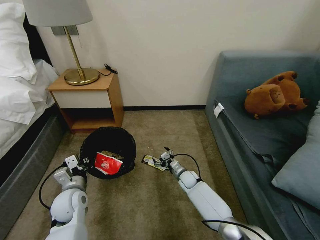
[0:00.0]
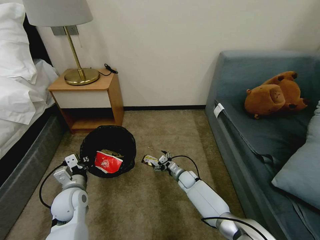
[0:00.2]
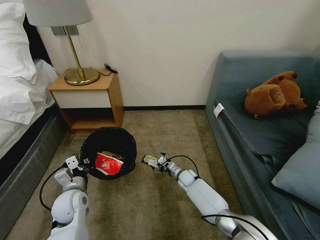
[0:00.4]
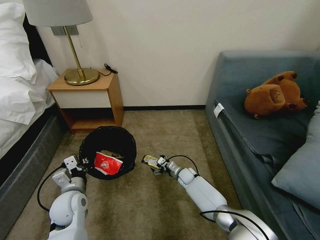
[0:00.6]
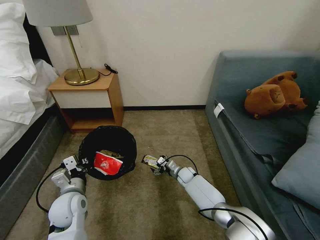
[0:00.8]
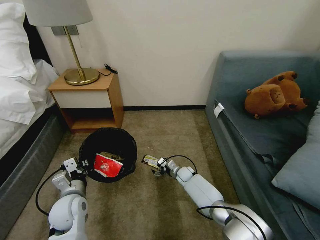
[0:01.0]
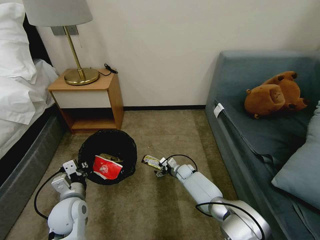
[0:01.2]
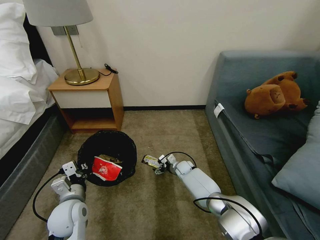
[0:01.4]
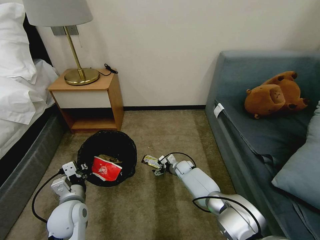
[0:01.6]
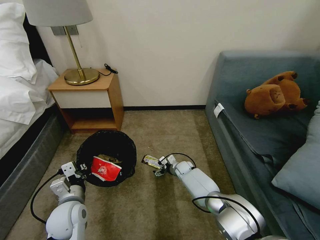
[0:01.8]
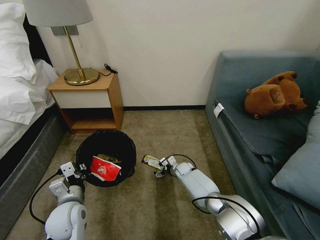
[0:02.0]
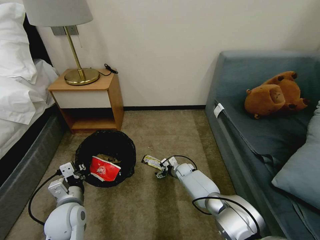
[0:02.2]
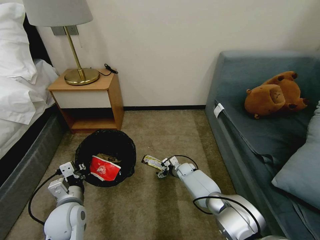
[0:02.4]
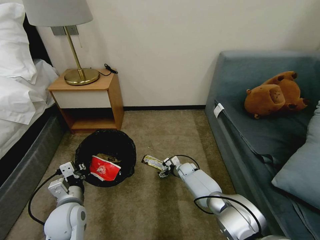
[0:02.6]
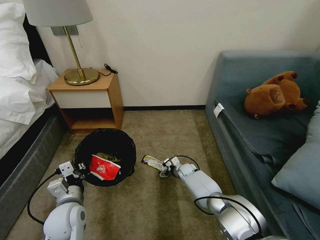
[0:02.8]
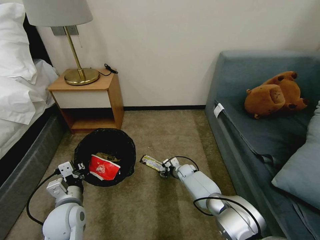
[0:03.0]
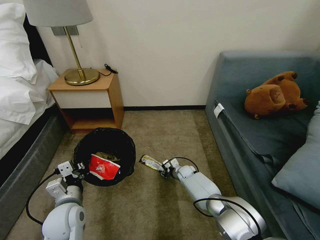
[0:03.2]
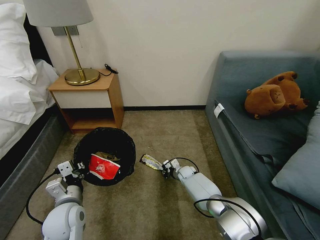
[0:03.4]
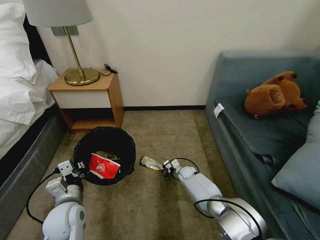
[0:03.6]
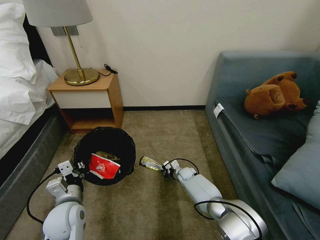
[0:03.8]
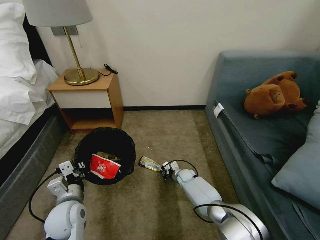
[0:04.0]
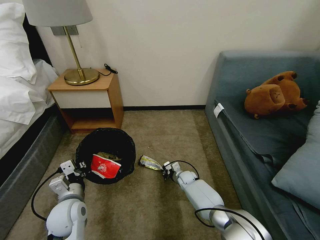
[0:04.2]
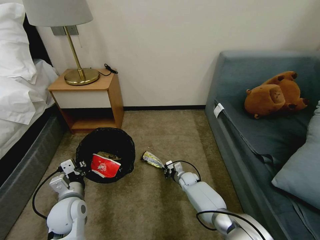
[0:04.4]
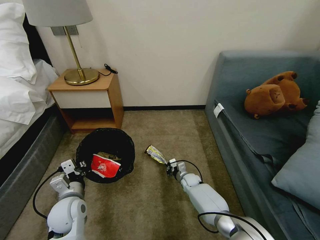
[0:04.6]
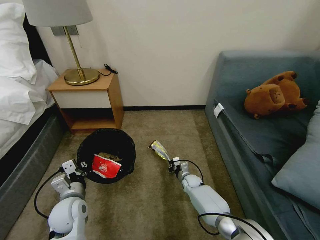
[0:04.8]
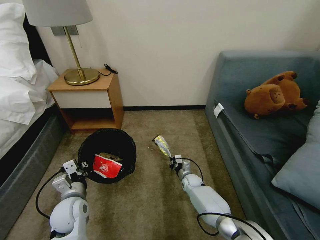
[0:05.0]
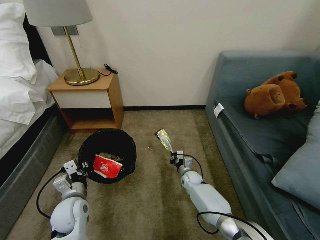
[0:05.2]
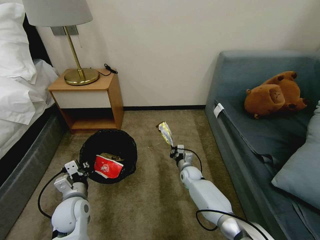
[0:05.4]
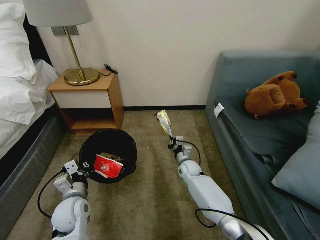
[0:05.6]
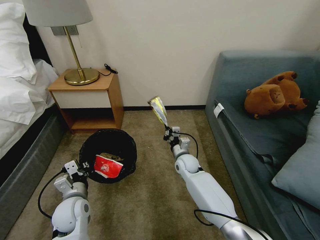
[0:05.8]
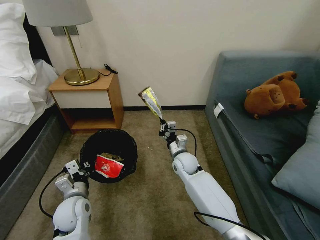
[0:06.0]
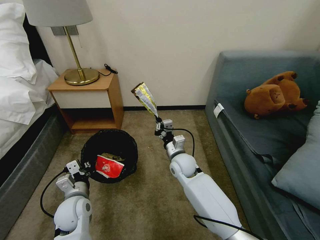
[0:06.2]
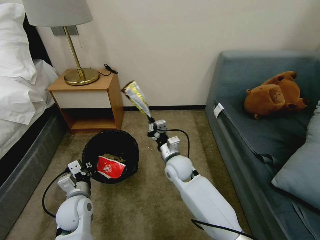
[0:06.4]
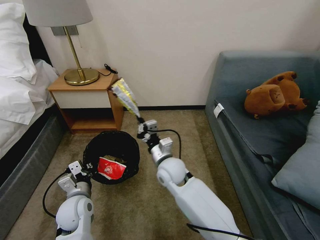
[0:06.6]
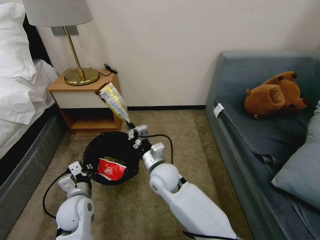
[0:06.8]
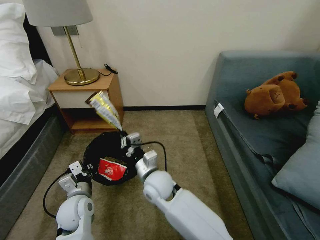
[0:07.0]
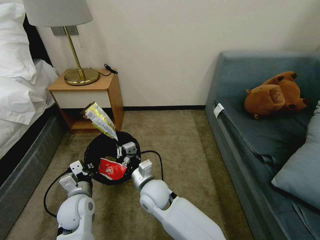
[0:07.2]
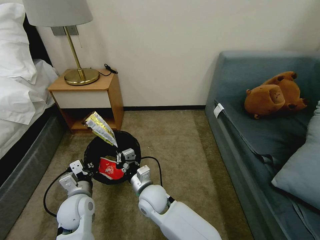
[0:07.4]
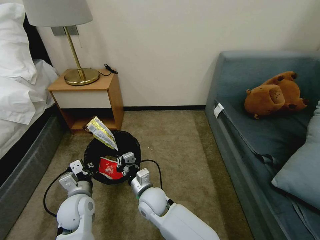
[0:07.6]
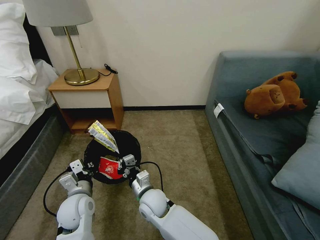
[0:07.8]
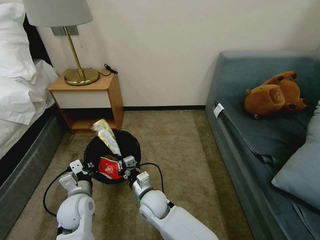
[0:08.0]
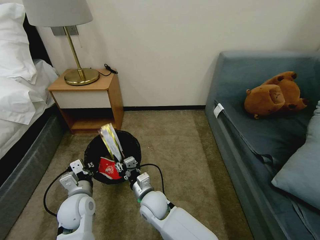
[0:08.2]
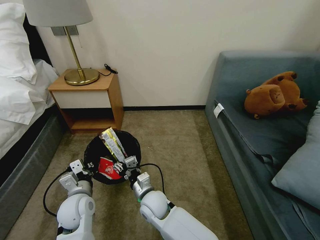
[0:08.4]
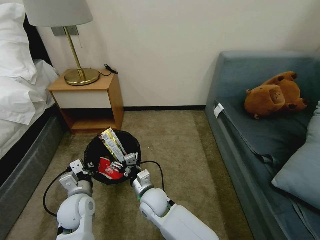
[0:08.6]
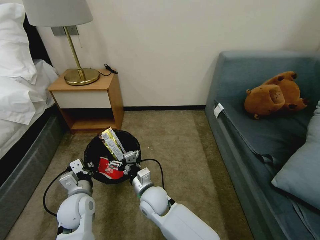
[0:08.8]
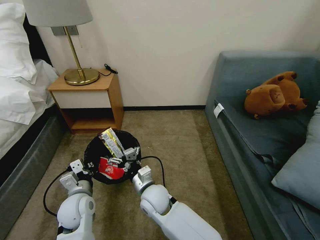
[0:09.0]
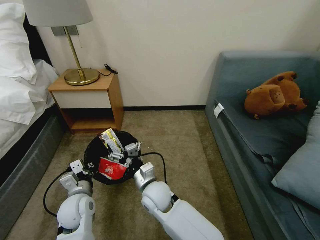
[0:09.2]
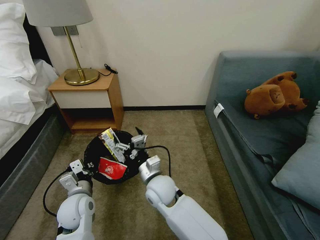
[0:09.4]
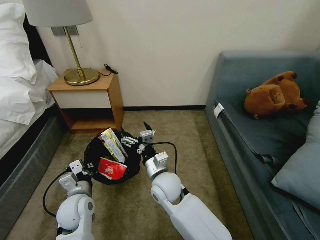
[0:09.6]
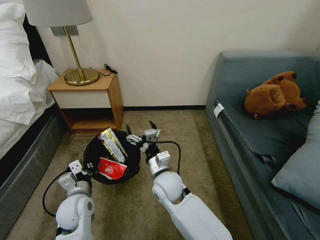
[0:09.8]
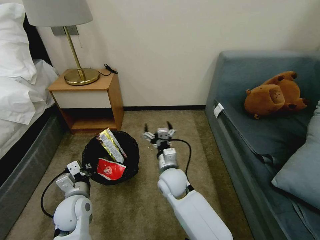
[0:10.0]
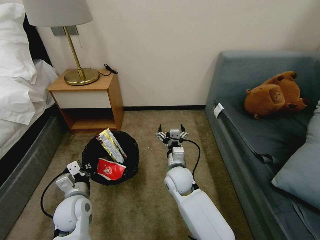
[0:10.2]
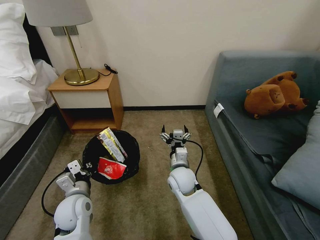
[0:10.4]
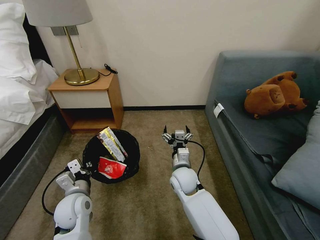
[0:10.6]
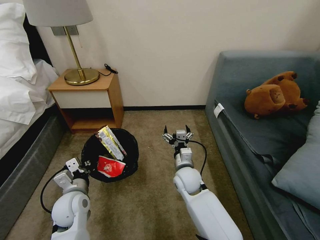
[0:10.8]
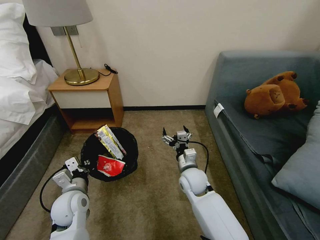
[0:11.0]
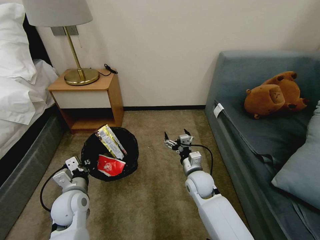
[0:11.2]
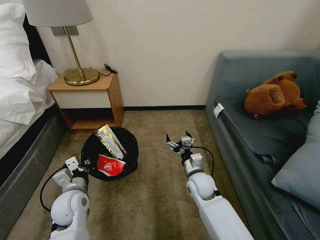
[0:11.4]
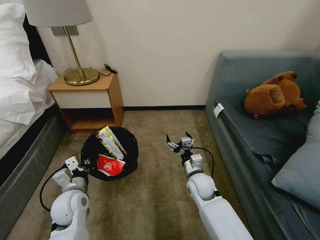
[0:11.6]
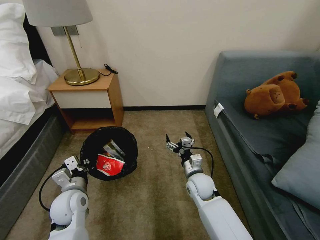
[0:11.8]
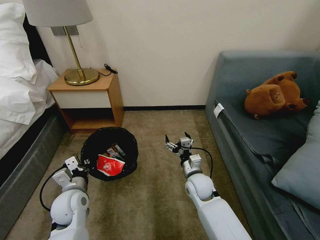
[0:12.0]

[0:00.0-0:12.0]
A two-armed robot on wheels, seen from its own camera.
Task of the whole recording: Pick up the trash bin, then pick up the garbage on the floor and place it into the trash bin.
0:00.0 to 0:01.6: The right gripper goes roughly 5 cm forward.
0:01.6 to 0:03.0: The grippers move only a little.
0:03.0 to 0:04.4: The right gripper closes up.
0:04.4 to 0:06.0: The right gripper heads upward, covering approximately 20 cm.
0:06.0 to 0:07.6: The right gripper moves backward and to the left, some 20 cm.
0:07.6 to 0:09.0: The right gripper opens up.
0:09.0 to 0:10.4: The right gripper travels to the right and forward by about 10 cm.
0:10.4 to 0:12.0: The right gripper travels to the right by approximately 5 cm.

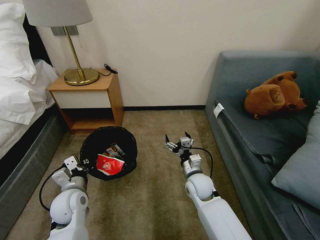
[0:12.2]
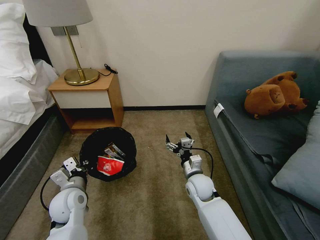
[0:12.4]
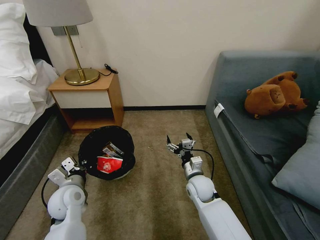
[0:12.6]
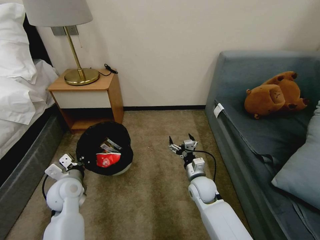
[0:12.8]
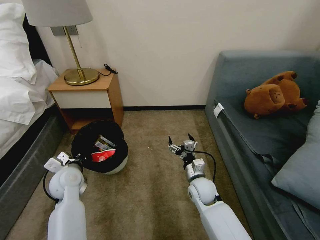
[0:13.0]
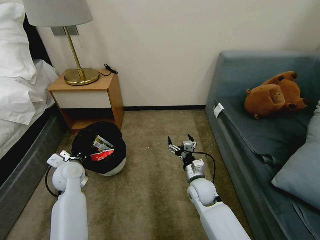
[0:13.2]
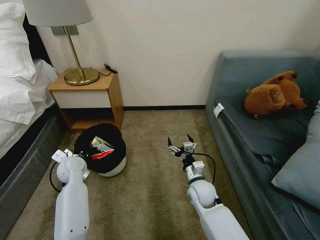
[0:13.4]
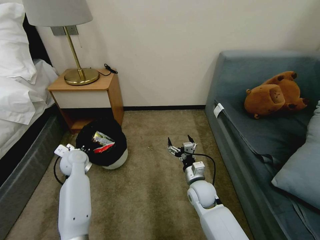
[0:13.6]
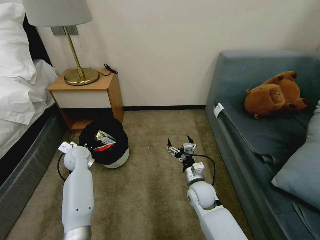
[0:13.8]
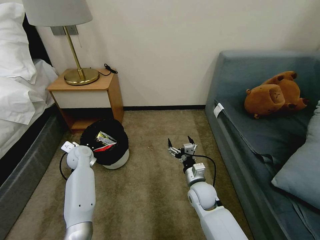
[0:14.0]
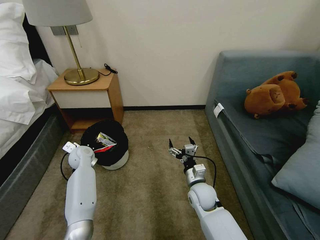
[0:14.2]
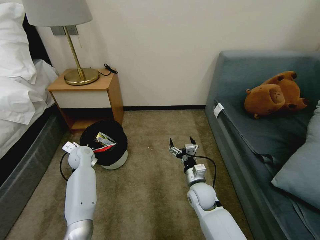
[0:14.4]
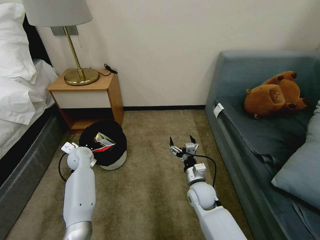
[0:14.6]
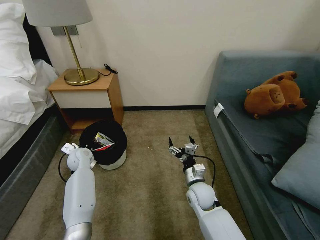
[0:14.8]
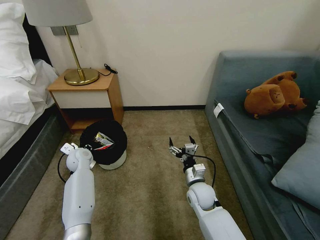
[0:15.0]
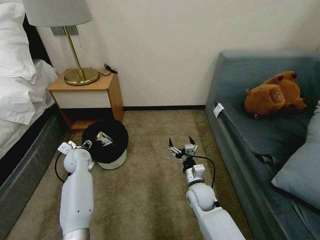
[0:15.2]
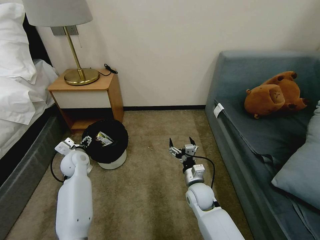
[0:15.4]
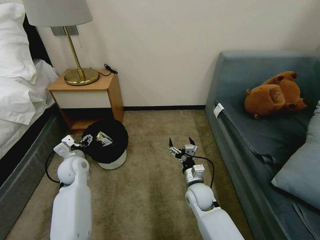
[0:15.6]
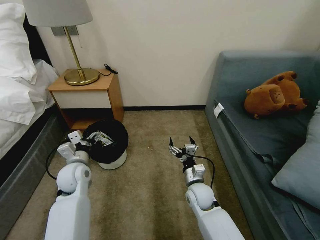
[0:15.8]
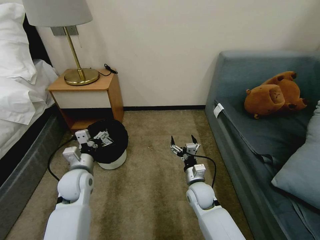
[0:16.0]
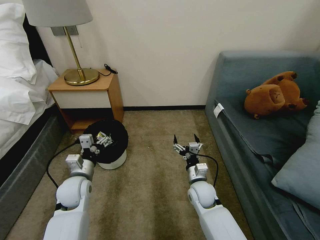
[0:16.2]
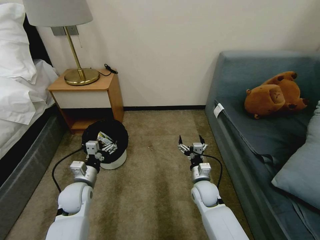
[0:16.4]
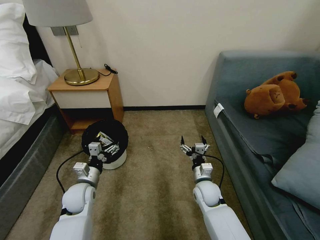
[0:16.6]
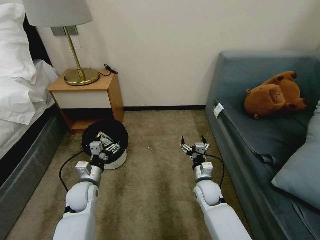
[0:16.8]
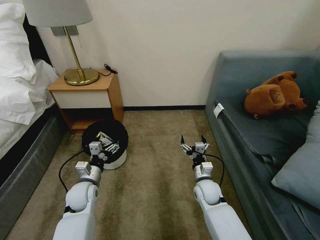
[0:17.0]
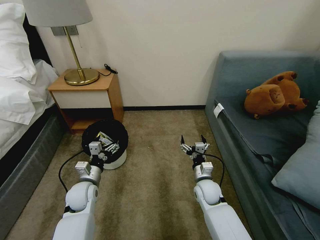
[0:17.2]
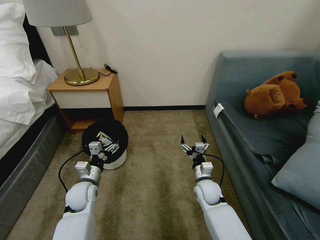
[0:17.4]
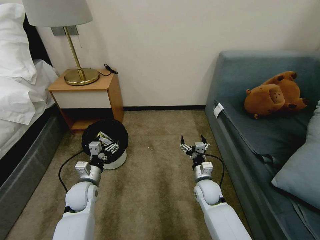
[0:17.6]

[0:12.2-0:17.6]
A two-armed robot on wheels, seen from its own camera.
Task of the whole recording: Pick up the trash bin, then pick up the garbage on the floor and place it into the trash bin.
0:12.2 to 0:13.6: The left gripper shifts some 15 cm forward.
0:13.6 to 0:15.0: The left gripper opens up.
0:15.0 to 0:16.2: The left gripper travels backward by about 15 cm, and opens its fingers.
0:16.2 to 0:17.6: The left gripper goes approximately 5 cm downward.

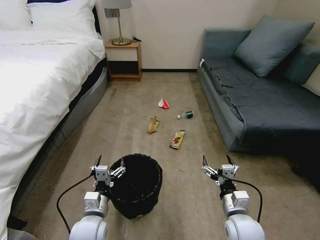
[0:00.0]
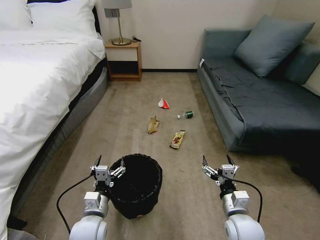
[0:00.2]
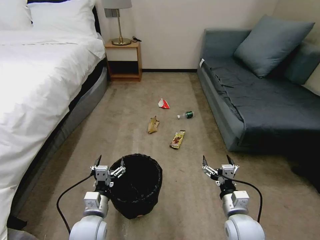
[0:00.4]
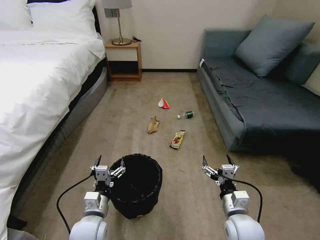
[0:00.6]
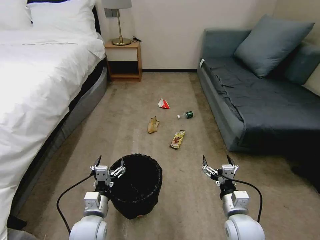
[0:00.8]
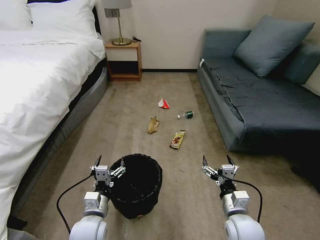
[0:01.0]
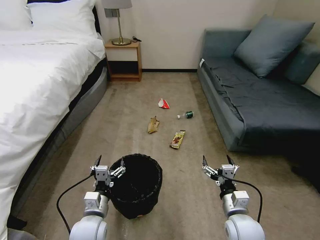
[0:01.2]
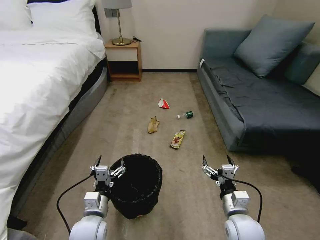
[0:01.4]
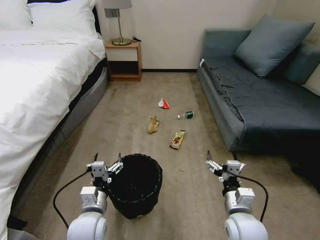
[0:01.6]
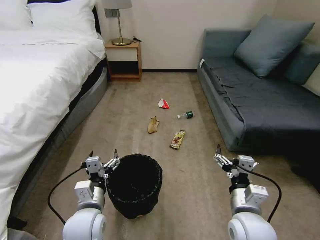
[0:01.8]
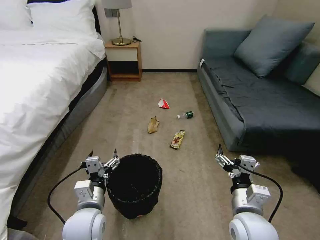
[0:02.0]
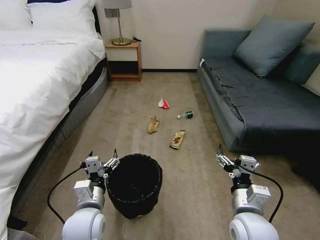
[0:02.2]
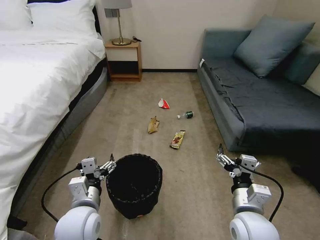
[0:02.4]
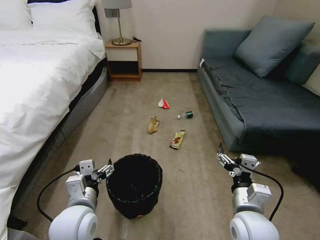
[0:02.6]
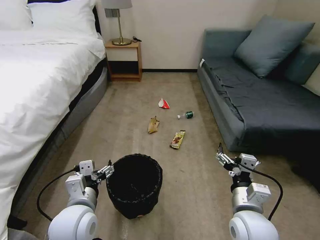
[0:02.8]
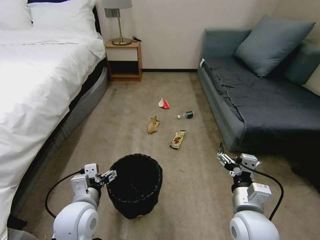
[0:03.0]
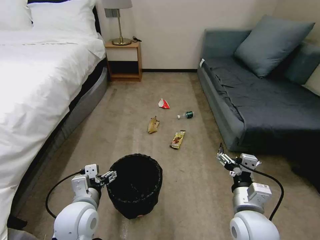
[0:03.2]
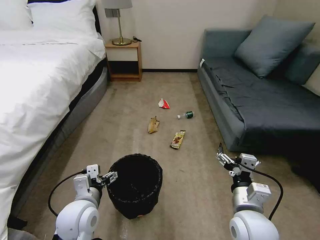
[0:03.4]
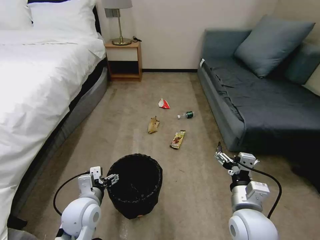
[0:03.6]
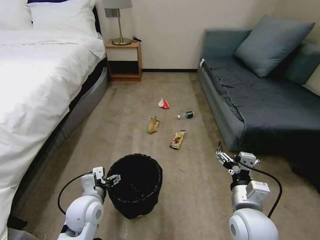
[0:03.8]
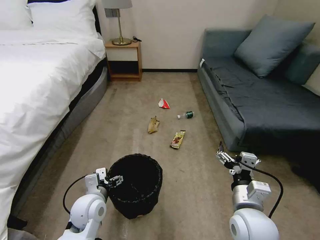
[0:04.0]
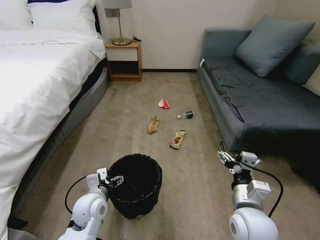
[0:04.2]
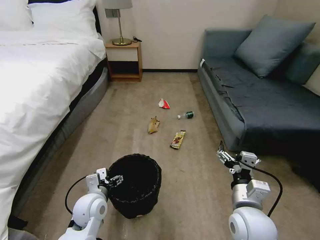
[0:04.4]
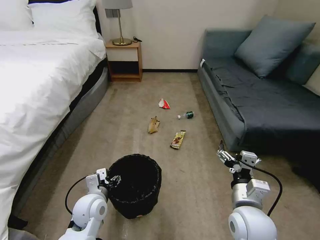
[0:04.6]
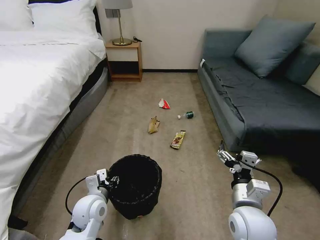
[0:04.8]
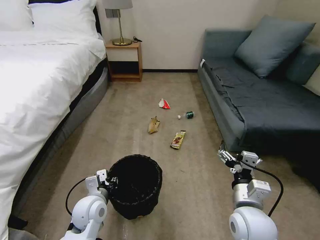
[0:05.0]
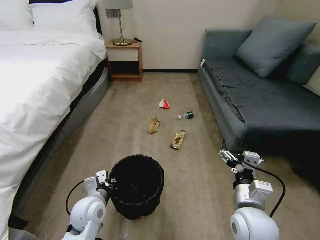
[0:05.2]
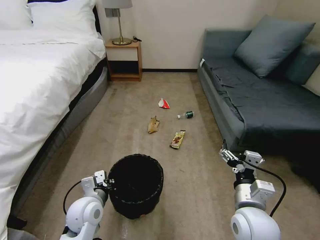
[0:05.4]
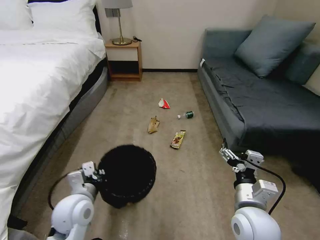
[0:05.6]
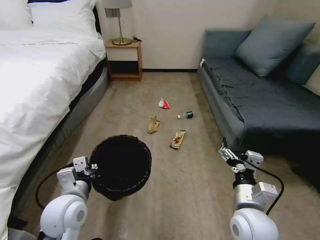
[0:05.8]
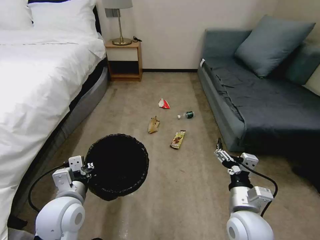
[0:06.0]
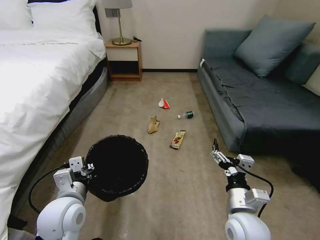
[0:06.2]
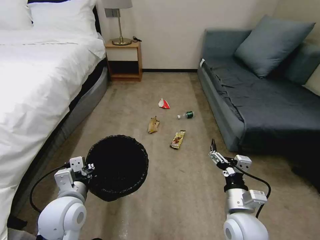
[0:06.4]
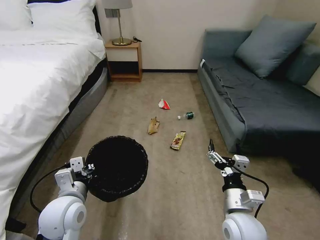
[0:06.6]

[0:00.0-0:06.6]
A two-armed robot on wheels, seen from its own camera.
Task of the whole recording: Pick up the trash bin, then pick up the garbage on the floor and place it into the trash bin.
0:01.6 to 0:03.2: Both grippers travel together upward, some 5 cm.
0:03.2 to 0:05.0: The left gripper moves downward, approximately 5 cm, and closes its fingers.
0:05.0 to 0:06.6: The left gripper moves upward, roughly 10 cm.
